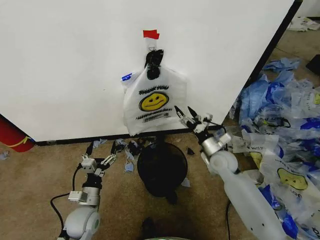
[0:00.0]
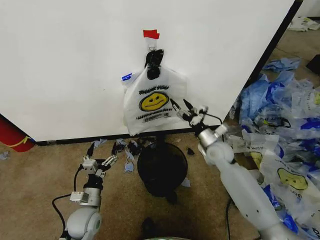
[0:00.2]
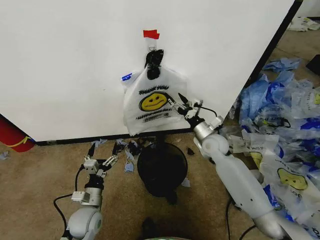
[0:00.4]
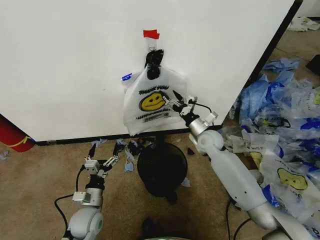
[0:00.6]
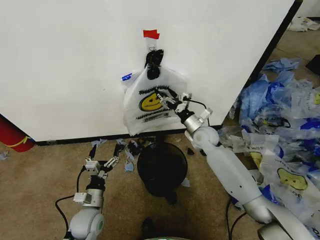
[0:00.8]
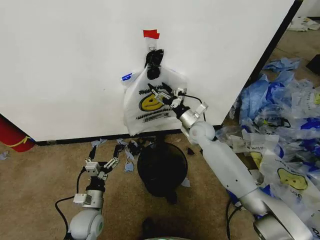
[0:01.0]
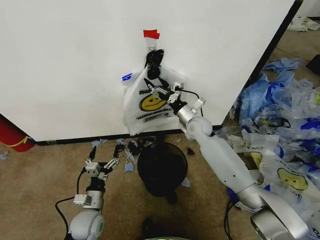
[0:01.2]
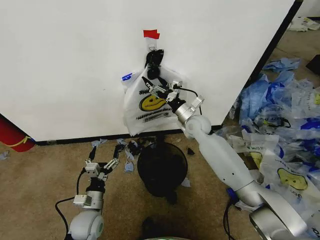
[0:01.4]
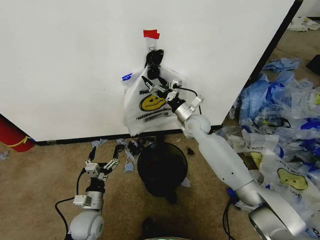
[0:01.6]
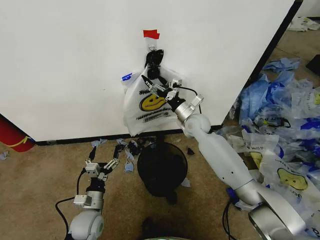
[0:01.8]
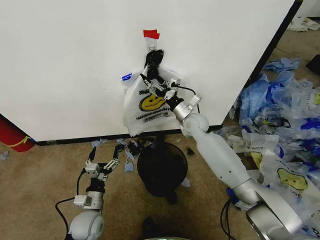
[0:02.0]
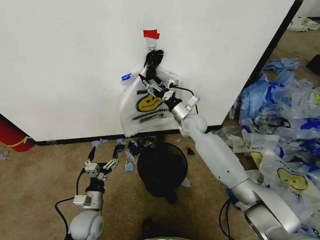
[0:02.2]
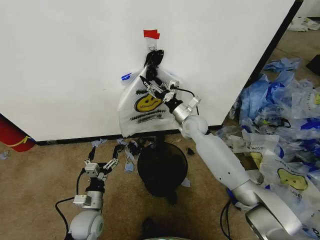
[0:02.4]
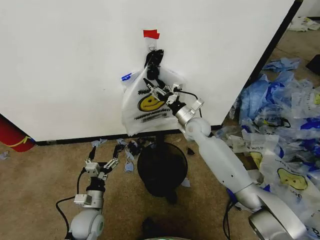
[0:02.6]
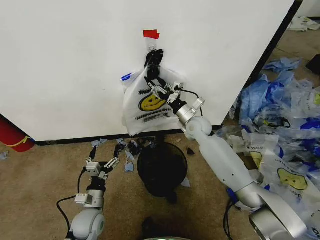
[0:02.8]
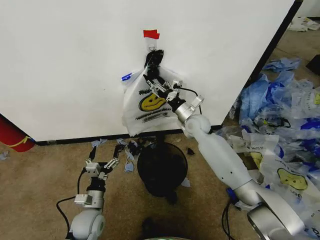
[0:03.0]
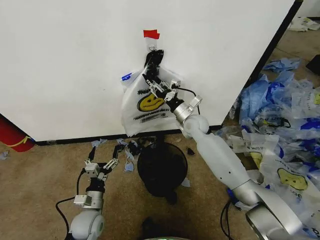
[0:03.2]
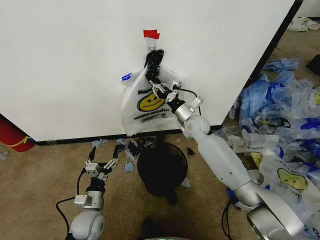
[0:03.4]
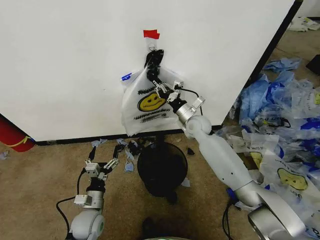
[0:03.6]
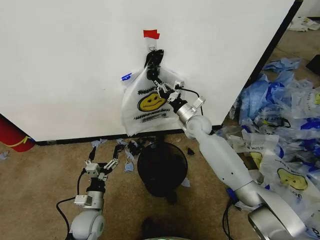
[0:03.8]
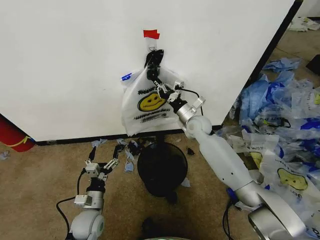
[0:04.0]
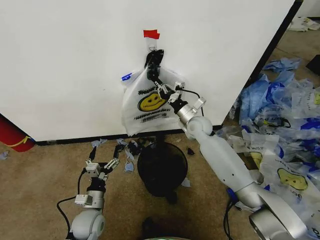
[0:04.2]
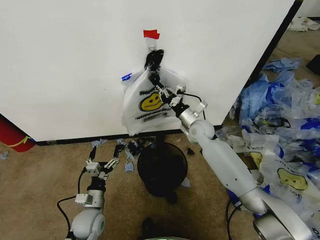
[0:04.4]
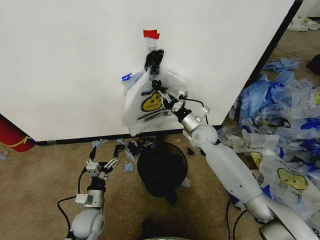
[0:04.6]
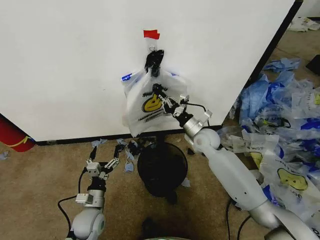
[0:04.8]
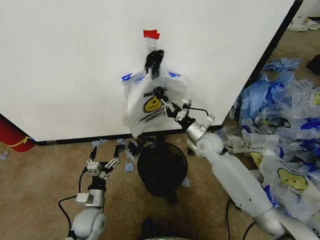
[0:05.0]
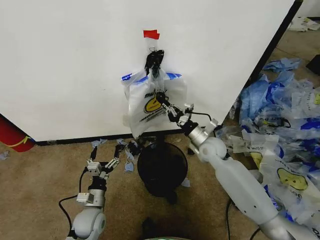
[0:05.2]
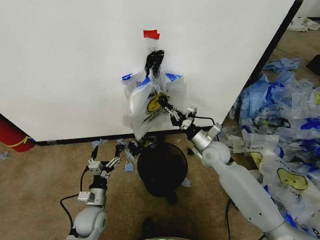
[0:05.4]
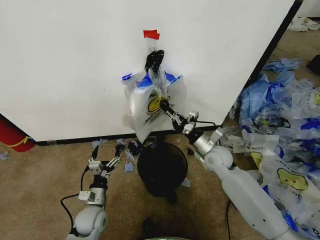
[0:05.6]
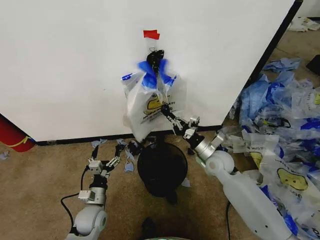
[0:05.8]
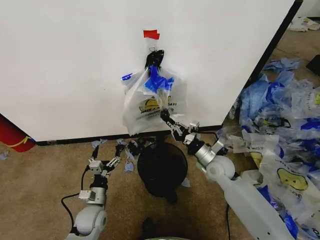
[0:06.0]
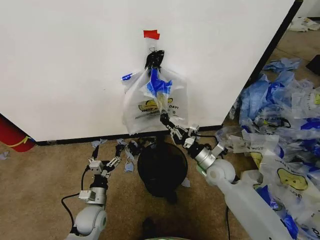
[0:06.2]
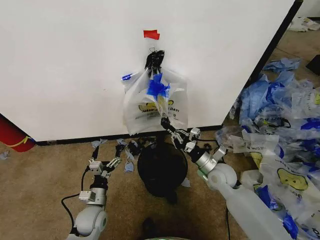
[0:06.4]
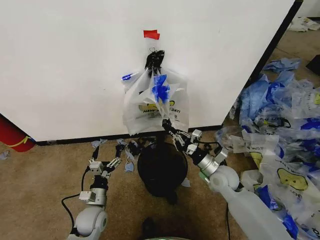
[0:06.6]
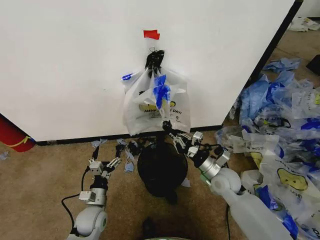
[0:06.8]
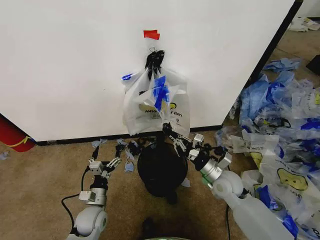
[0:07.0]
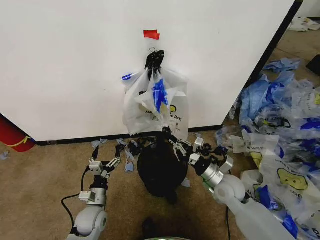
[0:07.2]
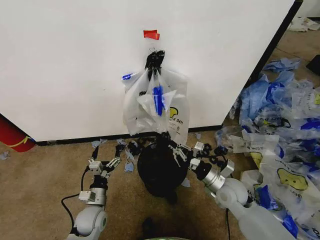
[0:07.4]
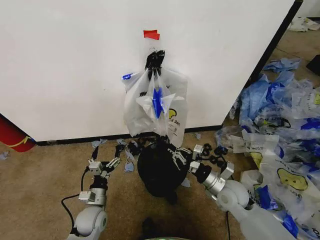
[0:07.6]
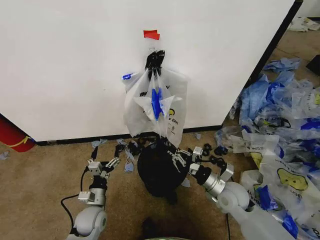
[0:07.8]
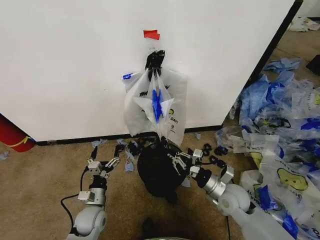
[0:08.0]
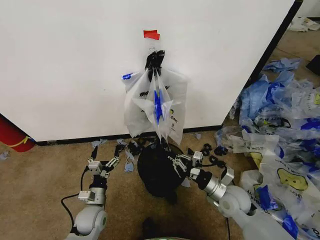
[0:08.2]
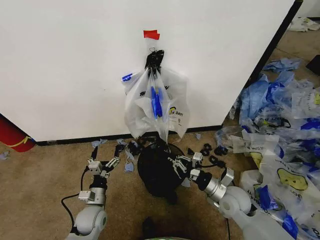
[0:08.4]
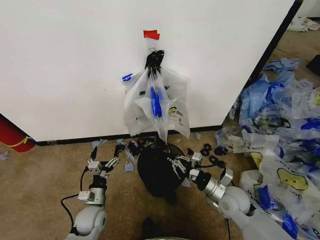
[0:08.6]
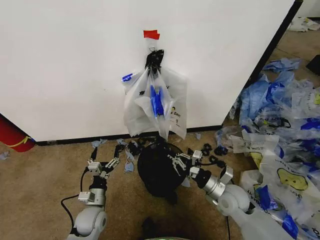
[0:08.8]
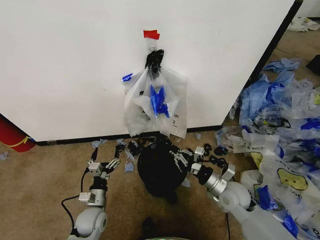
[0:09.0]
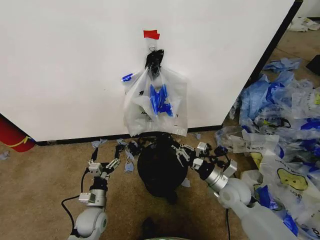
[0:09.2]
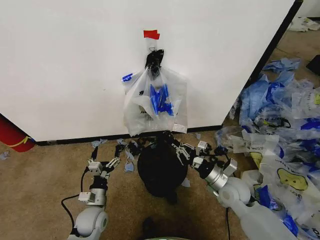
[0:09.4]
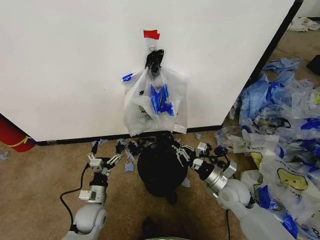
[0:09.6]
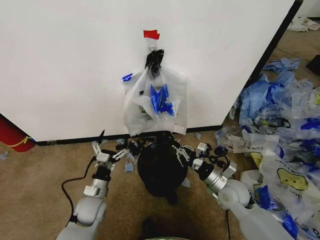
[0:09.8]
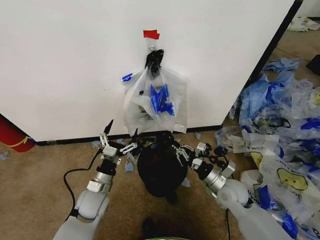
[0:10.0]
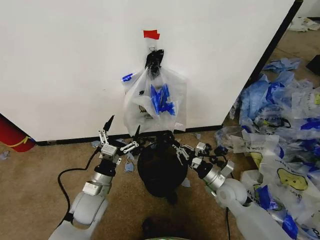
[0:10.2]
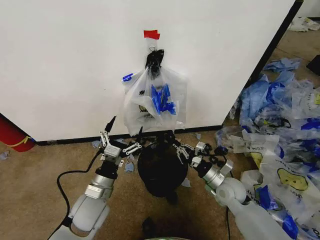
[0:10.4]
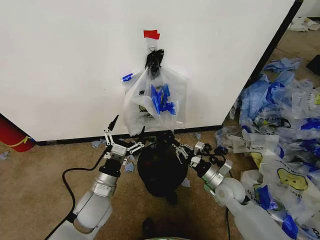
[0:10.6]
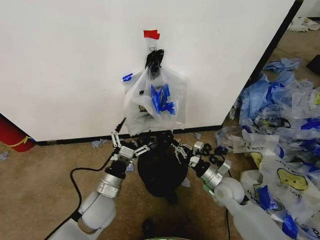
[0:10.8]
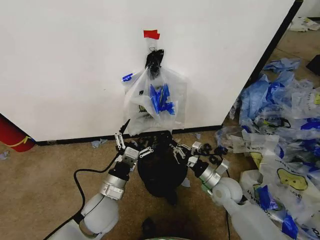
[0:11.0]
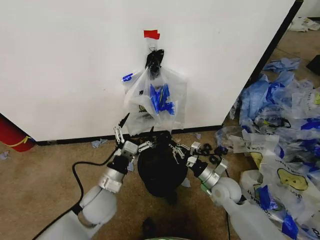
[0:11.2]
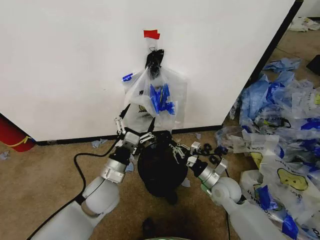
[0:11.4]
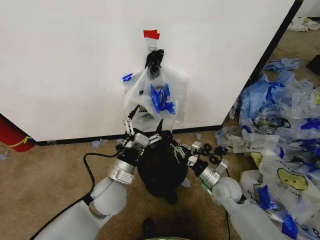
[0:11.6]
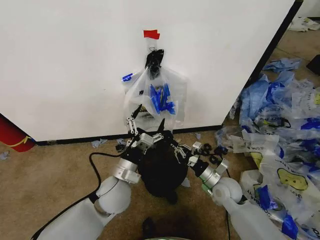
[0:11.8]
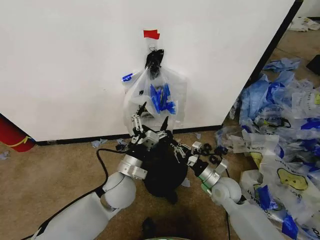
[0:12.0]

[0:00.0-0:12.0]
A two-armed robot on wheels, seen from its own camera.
Task of the whole recording: Pick up the garbage bag from the wall and place it over the trash bin.
0:00.0 to 0:01.6: The right gripper heads forward, to the left and upward, covering roughly 15 cm.
0:01.6 to 0:03.0: Neither gripper changes place.
0:03.0 to 0:04.4: The right gripper closes.
0:04.4 to 0:06.0: The right gripper goes roughly 15 cm backward, downward and to the right.
0:06.0 to 0:07.6: The right gripper shifts approximately 10 cm backward.
0:07.6 to 0:09.0: The grippers make only small movements.
0:09.0 to 0:10.4: The left gripper shifts about 15 cm upward.
0:10.4 to 0:12.0: The left gripper goes some 10 cm to the right and forward.

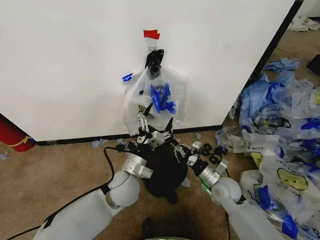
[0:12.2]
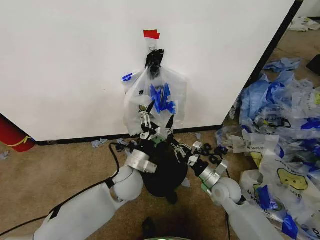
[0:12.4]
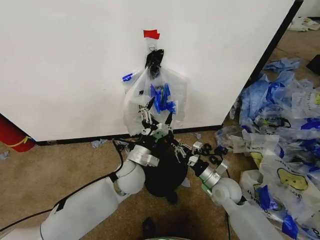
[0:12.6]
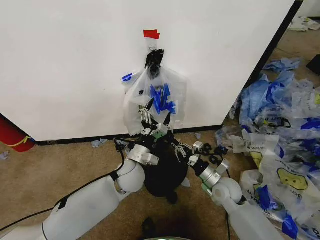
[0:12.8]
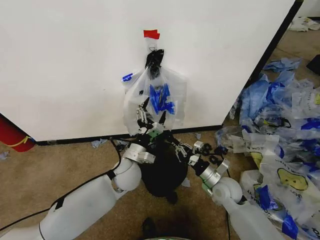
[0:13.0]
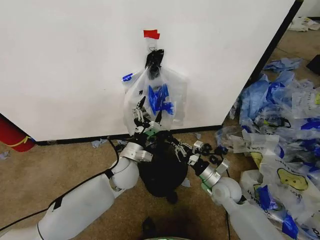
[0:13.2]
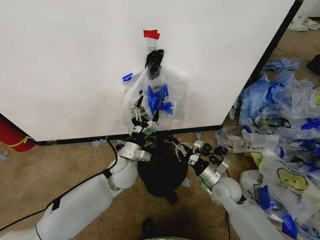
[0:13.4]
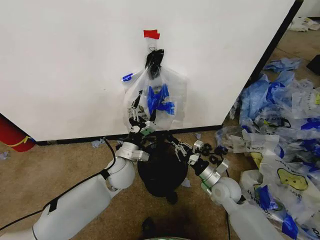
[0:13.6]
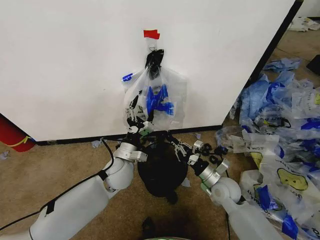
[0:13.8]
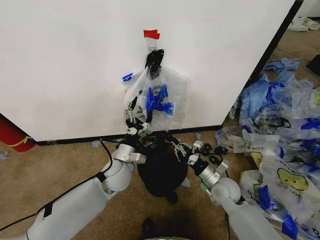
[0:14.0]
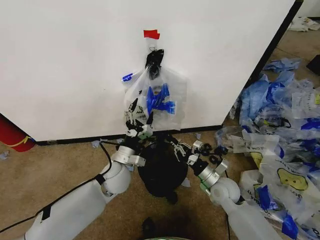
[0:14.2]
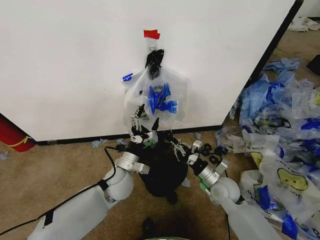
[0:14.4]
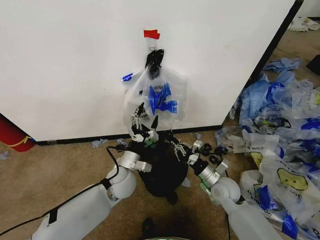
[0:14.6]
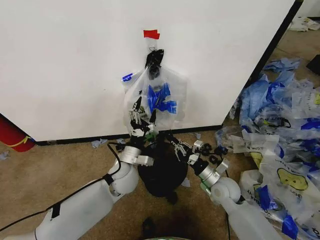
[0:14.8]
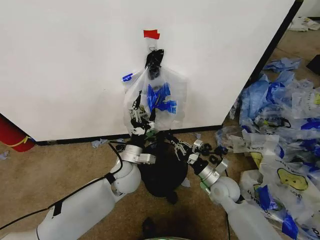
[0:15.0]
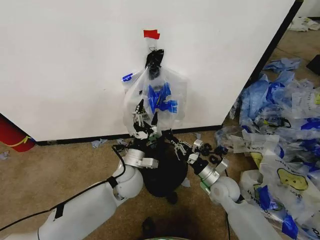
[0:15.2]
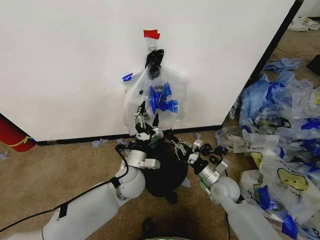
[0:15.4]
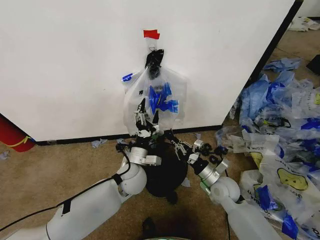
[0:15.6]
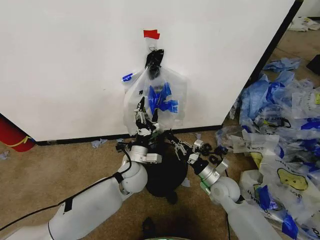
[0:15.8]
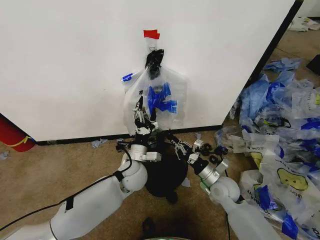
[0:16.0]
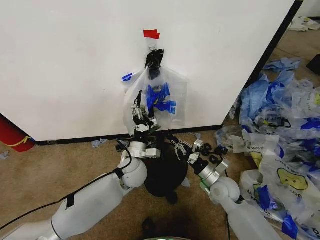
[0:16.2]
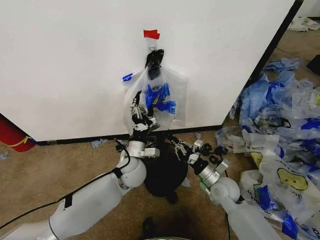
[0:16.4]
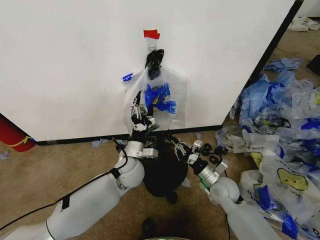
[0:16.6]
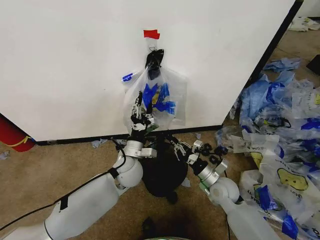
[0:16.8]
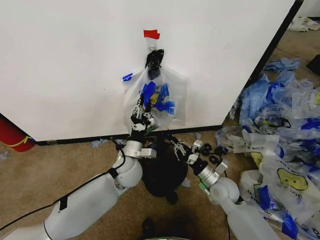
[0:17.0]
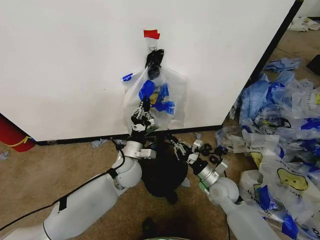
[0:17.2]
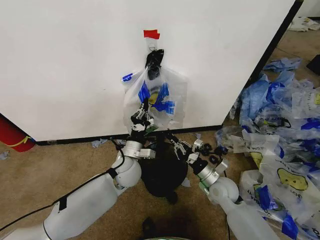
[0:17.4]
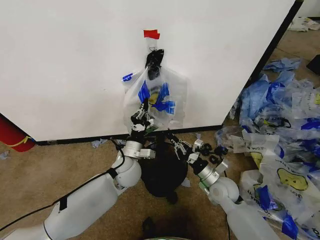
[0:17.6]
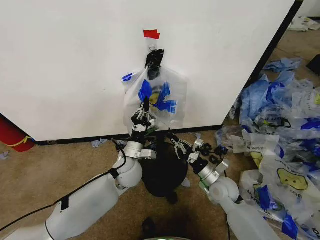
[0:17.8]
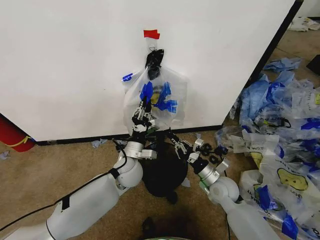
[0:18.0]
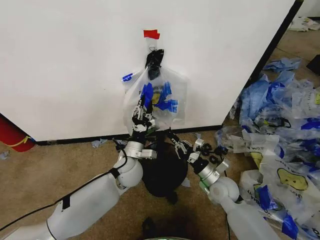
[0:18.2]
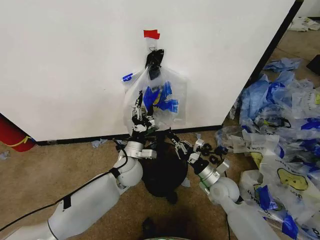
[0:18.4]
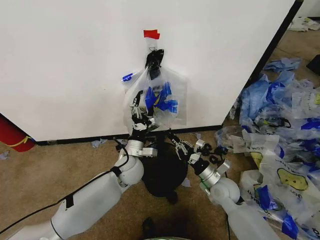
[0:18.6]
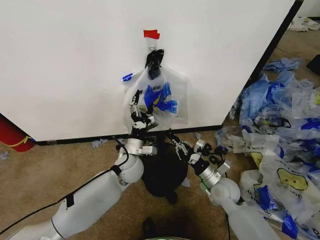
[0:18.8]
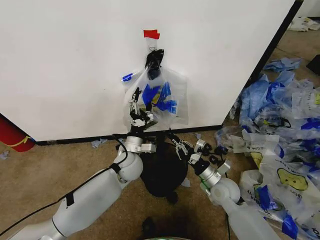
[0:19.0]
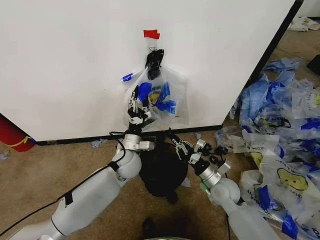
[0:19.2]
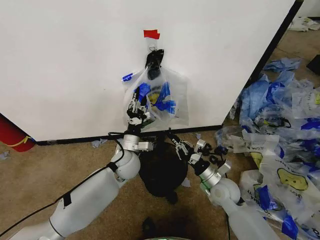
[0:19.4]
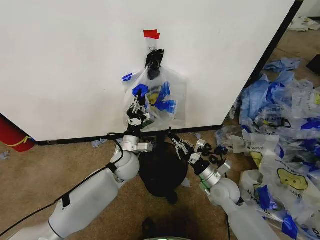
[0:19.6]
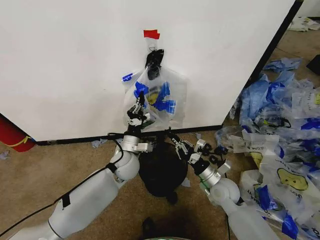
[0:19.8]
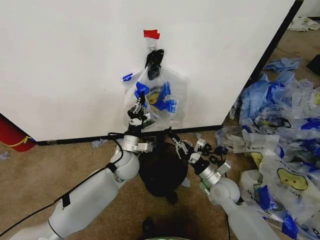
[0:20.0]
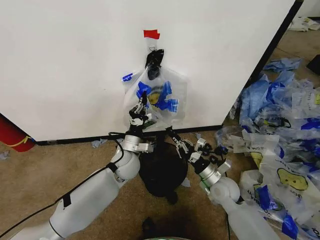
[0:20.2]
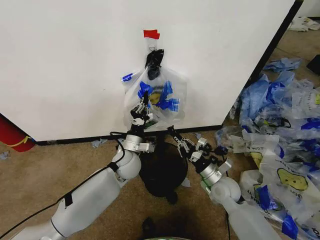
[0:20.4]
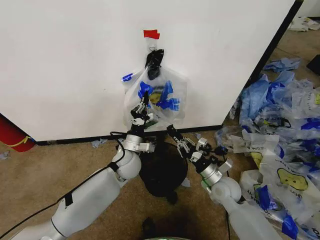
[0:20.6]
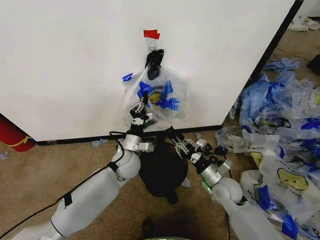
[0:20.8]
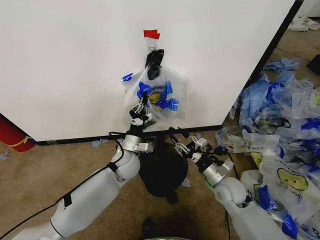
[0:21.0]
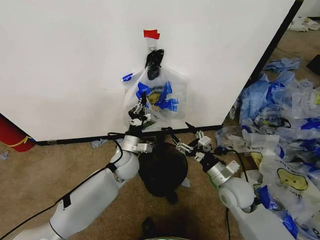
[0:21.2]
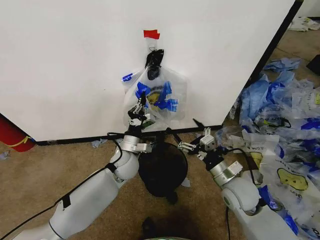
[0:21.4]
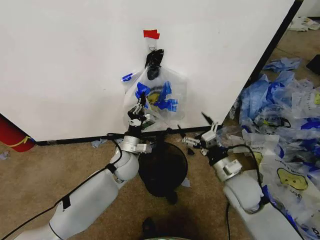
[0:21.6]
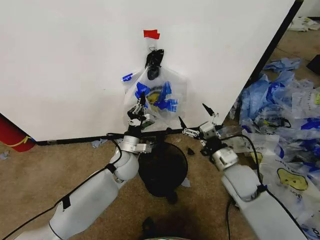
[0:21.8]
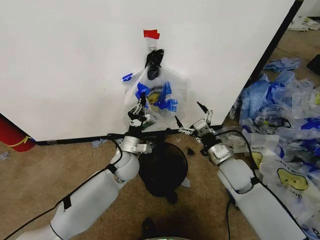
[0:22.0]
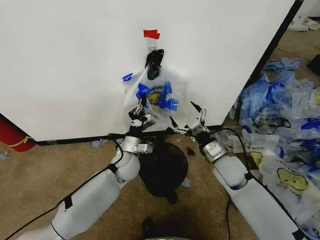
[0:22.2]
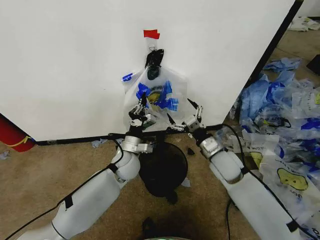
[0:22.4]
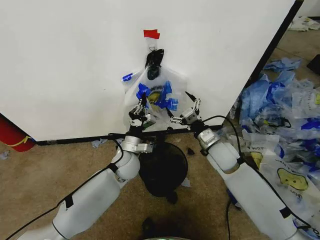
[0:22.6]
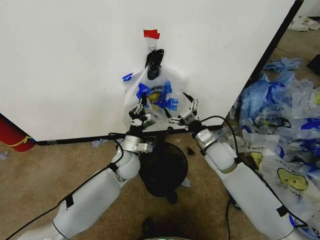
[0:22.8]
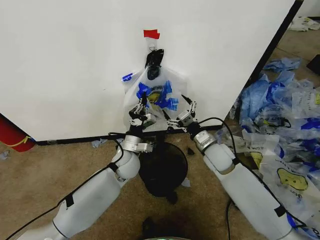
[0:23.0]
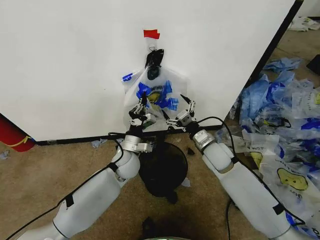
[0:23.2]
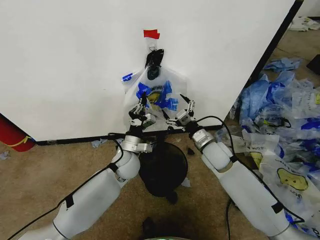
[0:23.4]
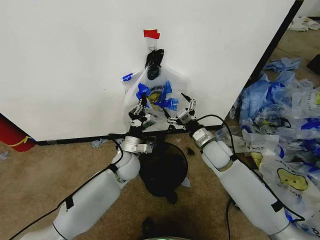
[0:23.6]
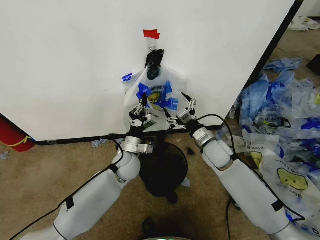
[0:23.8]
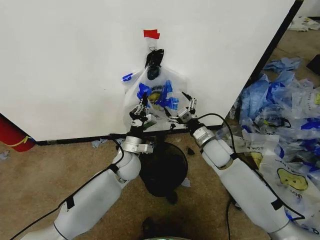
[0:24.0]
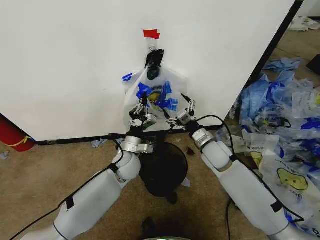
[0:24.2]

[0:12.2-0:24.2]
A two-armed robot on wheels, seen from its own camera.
Task of the whole recording: Pick up the garbage bag from the wall and place it over the trash bin.
0:12.2 to 0:13.8: The left gripper moves forward, some 5 cm.
0:13.8 to 0:16.6: The grippers stay close to where they were, moving slightly.
0:16.6 to 0:18.2: The left gripper closes, then opens again.
0:18.2 to 0:19.8: The left gripper closes.
0:19.8 to 0:21.2: The right gripper shifts by about 5 cm, and opens up.
0:21.2 to 0:22.6: The right gripper goes some 10 cm forward and upward.
0:22.6 to 0:24.2: The grippers stay close to where they were, moving slightly.
